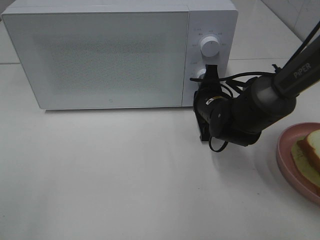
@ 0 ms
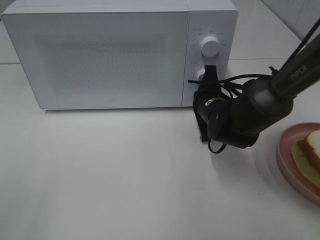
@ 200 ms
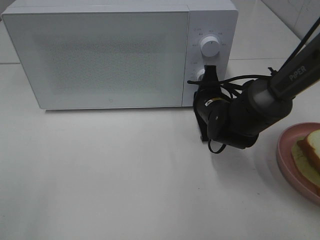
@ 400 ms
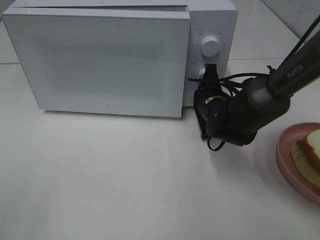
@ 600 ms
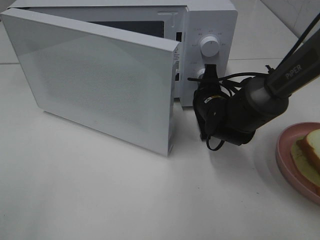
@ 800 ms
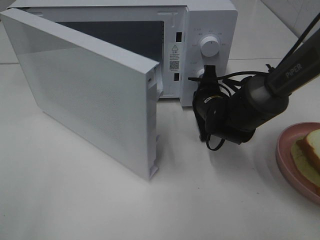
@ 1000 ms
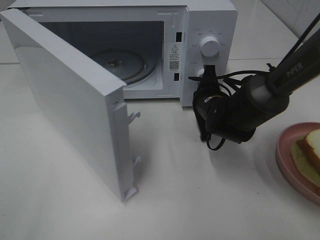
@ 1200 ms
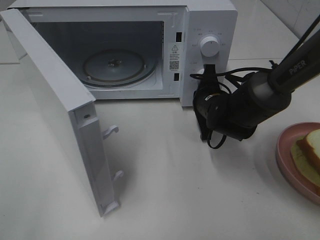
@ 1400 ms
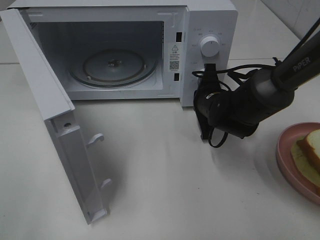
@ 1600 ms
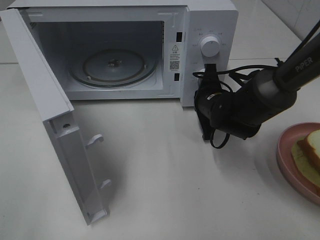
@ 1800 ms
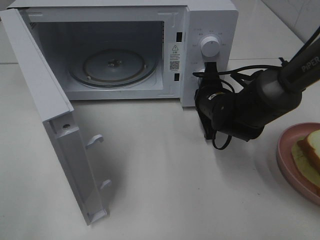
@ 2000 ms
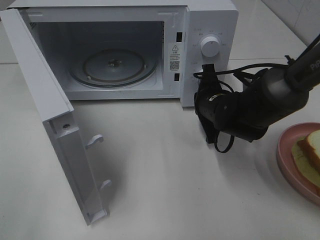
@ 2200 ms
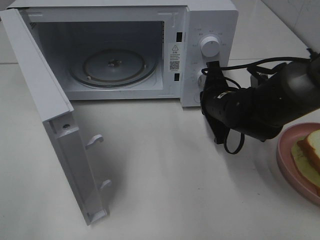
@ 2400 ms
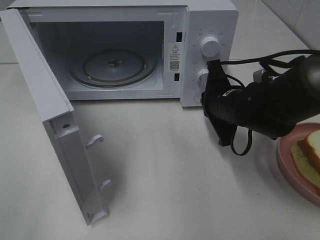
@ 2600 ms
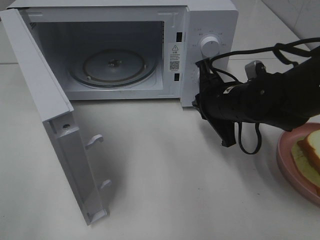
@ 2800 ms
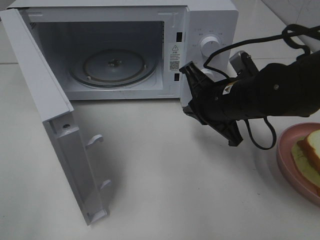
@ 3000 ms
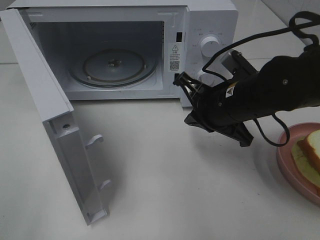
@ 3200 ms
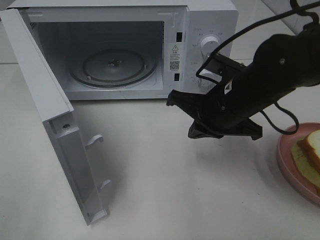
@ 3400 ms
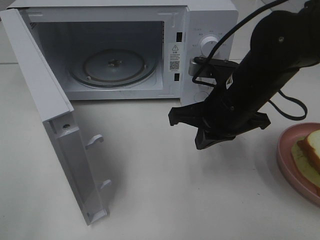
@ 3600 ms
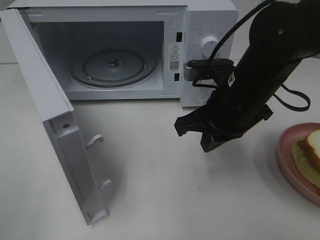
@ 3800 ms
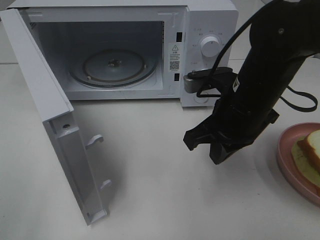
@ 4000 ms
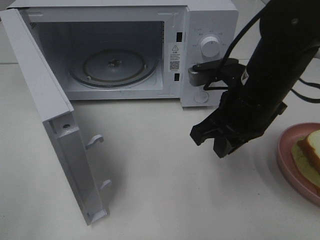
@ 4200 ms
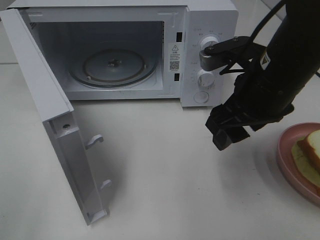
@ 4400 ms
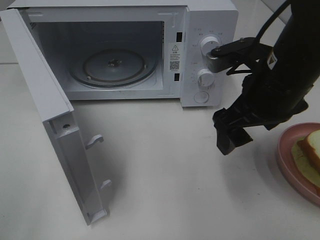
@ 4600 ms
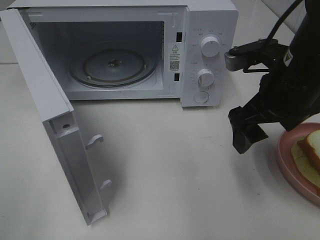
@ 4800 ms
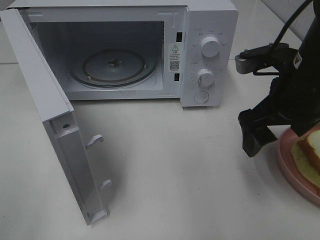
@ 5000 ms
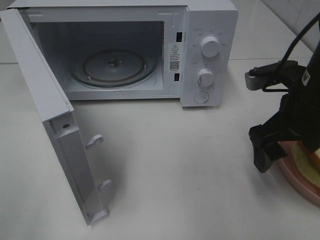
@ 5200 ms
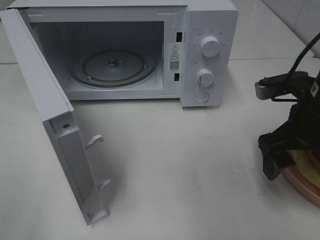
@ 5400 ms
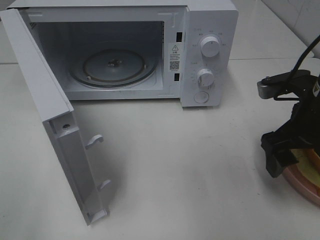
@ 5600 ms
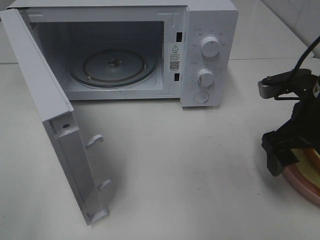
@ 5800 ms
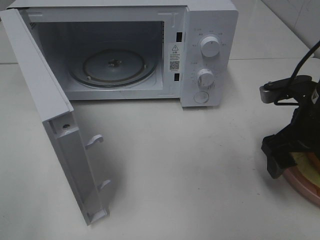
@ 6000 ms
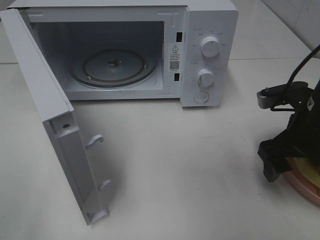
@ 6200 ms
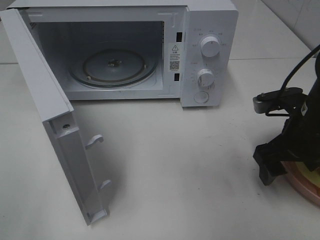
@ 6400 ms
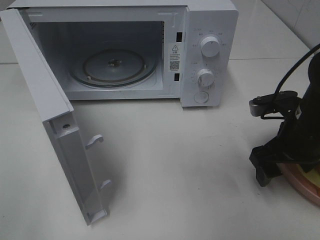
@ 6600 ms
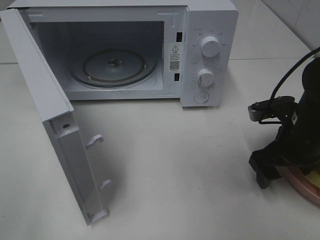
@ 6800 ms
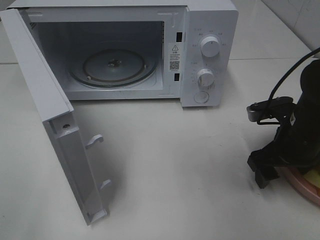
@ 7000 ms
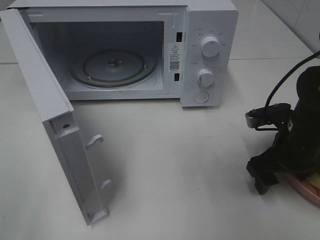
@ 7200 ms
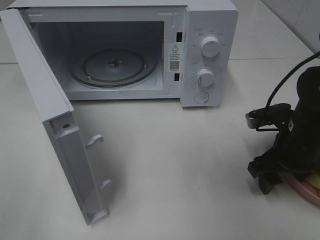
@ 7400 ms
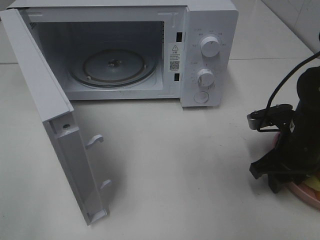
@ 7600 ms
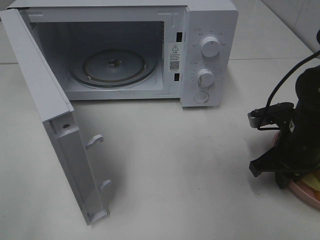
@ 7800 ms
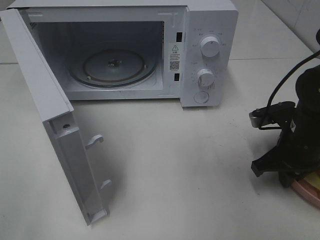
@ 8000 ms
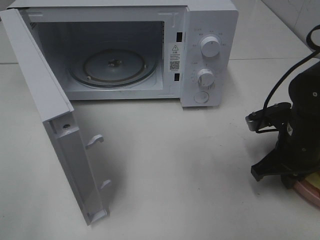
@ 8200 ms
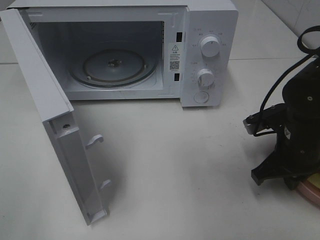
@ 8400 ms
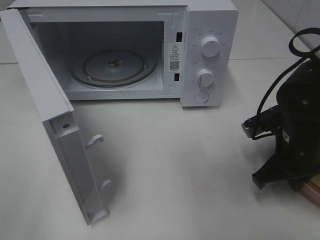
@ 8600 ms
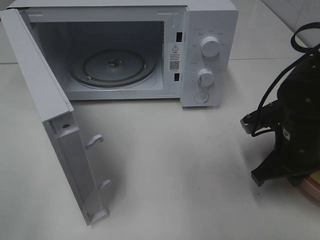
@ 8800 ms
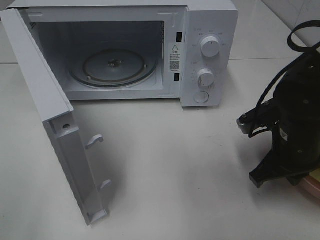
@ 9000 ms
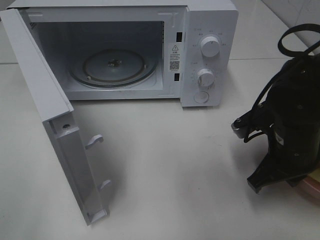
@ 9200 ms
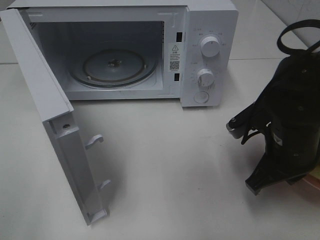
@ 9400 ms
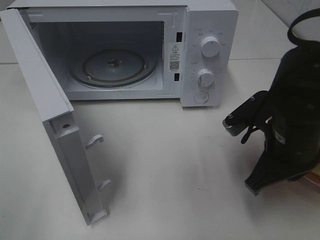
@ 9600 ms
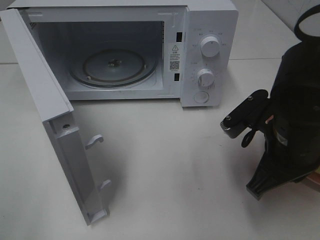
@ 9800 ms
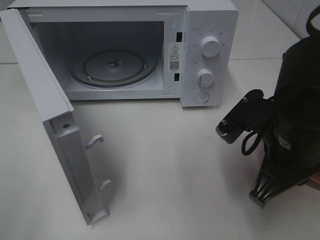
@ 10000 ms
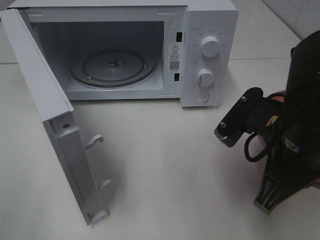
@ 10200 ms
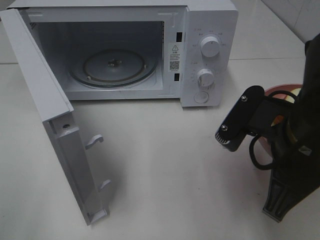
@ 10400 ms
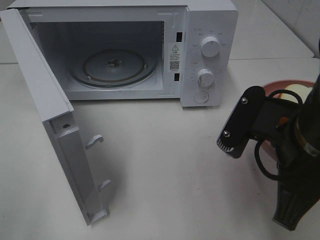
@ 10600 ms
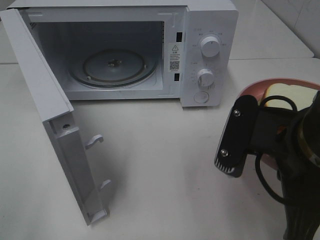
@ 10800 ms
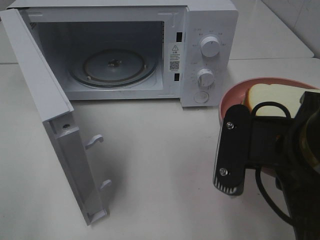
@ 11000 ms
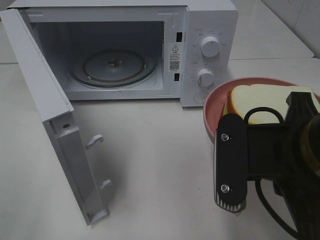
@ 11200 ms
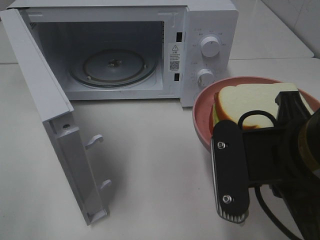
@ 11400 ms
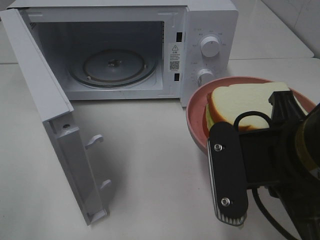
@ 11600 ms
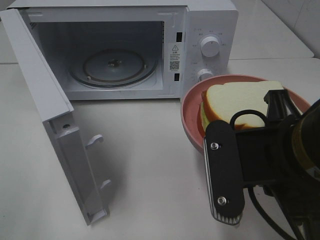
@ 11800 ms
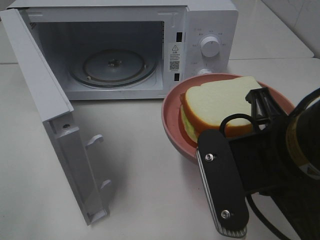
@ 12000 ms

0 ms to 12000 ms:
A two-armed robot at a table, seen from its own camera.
Task of the whole recording: Heat Sandwich.
Step, 0 ms to 2200 ms: Right hand: press the switch.
Step, 2400 ms to 8000 ms: Right hand: grab the plate with the sandwich.
1600 ms to 3000 ms: The right gripper moves backward and upward, approximately 10 cm.
3000 ms to 4400 ms: The right gripper goes approximately 5 cm upward, and opens up.
4400 ms to 6000 ms: The right gripper goes approximately 10 cm to the right and downward.
6000 ms to 7600 ms: The right gripper moves downward, some 5 cm, and closes its fingers.
7600 ms to 9000 ms: The right gripper closes.
9000 ms to 10400 ms: The right gripper goes roughly 10 cm upward, backward and to the left.
10400 ms to 12000 ms: The right gripper changes place by roughly 5 cm.

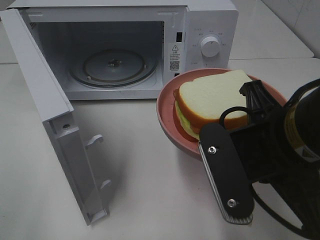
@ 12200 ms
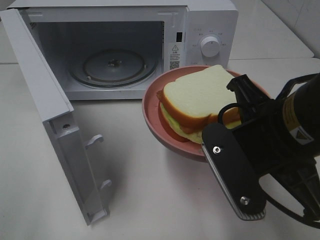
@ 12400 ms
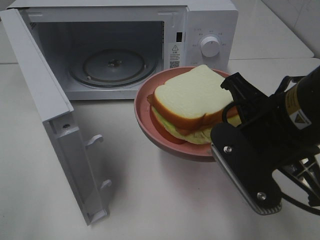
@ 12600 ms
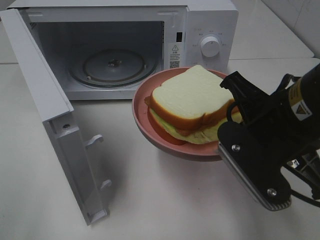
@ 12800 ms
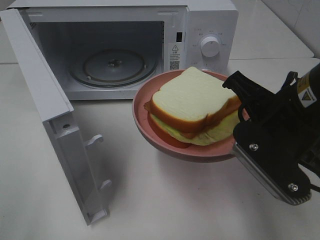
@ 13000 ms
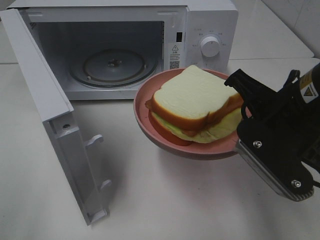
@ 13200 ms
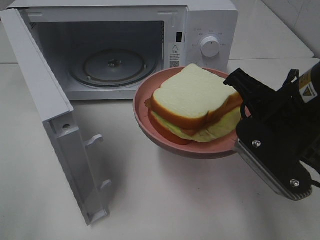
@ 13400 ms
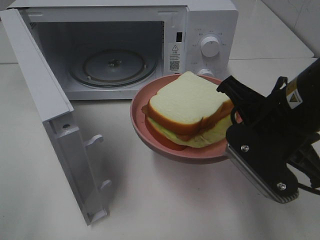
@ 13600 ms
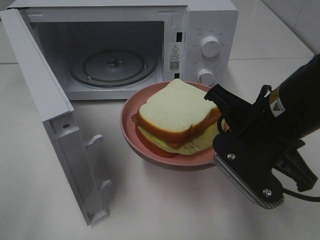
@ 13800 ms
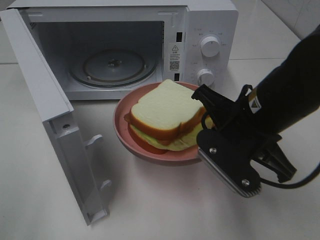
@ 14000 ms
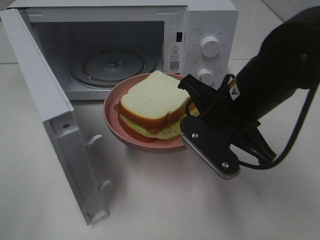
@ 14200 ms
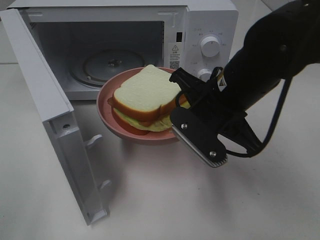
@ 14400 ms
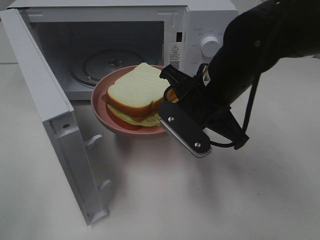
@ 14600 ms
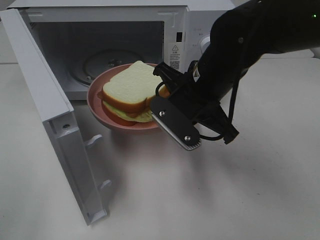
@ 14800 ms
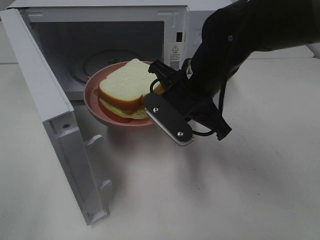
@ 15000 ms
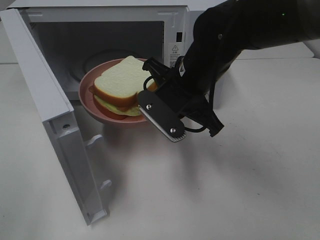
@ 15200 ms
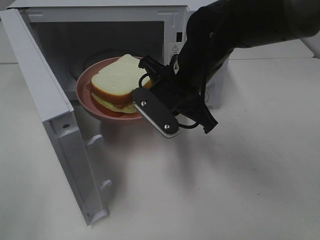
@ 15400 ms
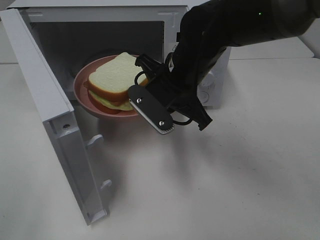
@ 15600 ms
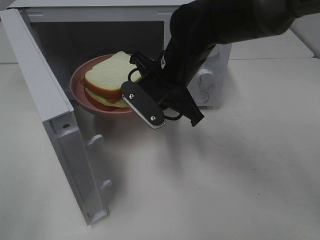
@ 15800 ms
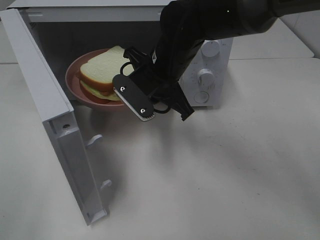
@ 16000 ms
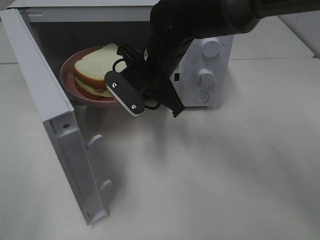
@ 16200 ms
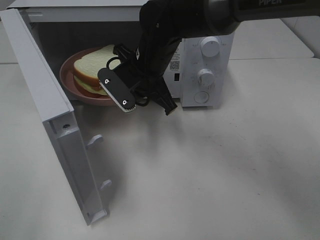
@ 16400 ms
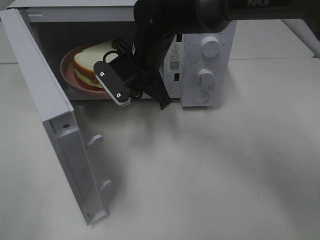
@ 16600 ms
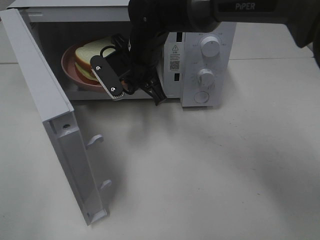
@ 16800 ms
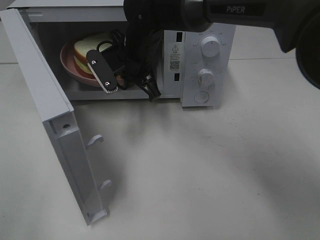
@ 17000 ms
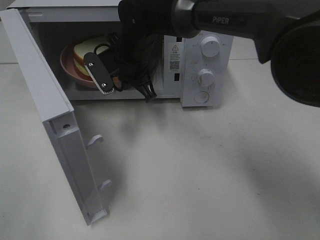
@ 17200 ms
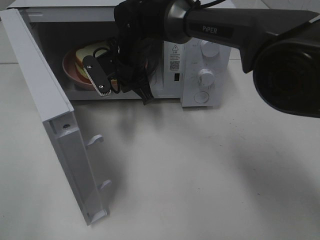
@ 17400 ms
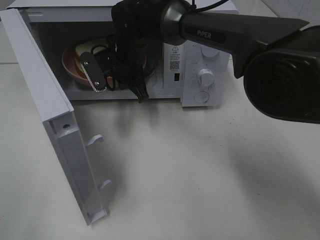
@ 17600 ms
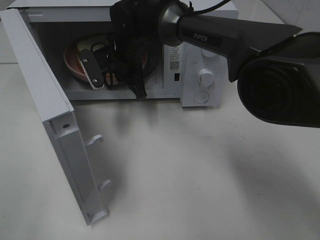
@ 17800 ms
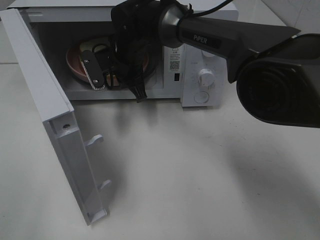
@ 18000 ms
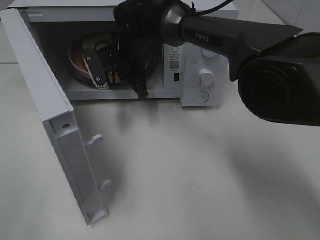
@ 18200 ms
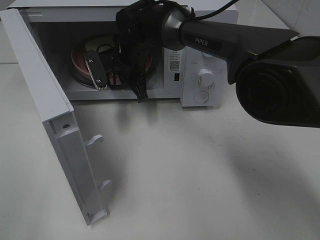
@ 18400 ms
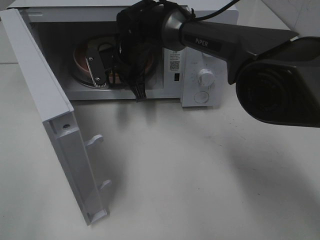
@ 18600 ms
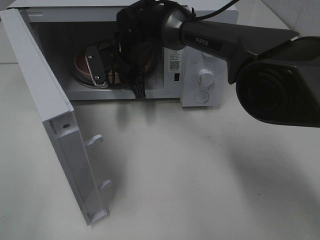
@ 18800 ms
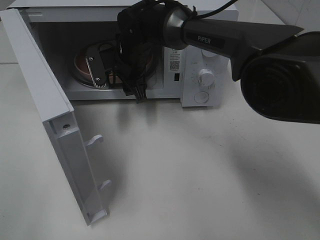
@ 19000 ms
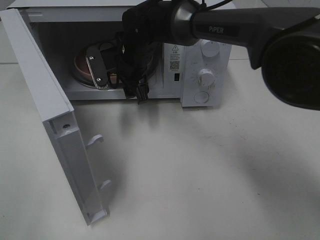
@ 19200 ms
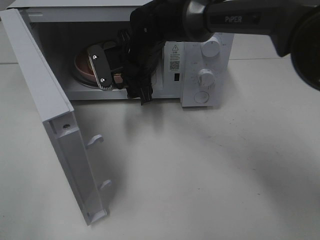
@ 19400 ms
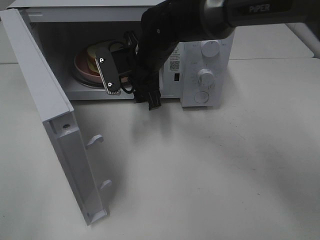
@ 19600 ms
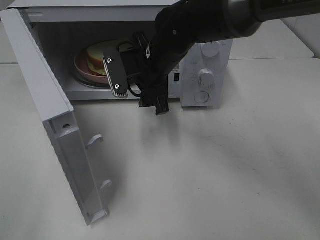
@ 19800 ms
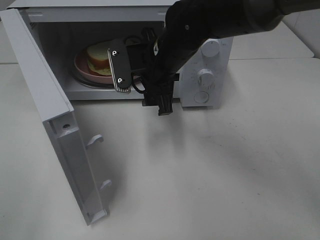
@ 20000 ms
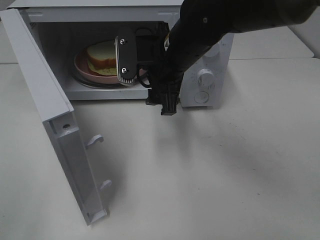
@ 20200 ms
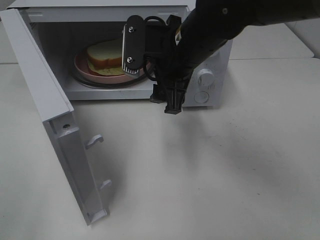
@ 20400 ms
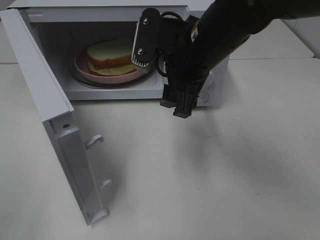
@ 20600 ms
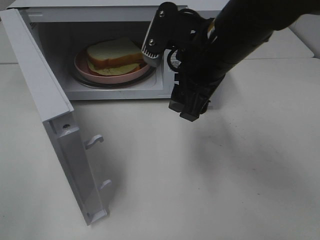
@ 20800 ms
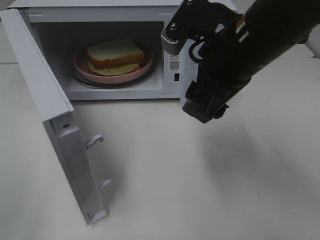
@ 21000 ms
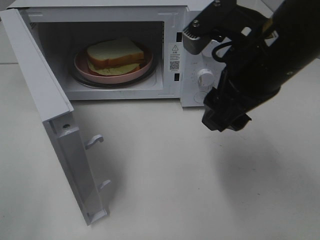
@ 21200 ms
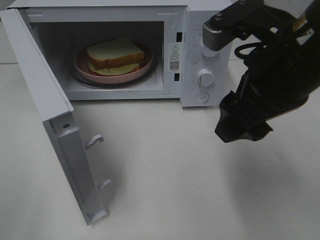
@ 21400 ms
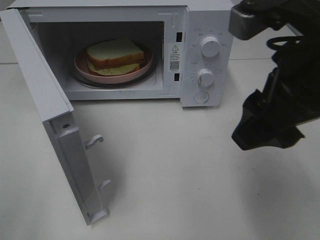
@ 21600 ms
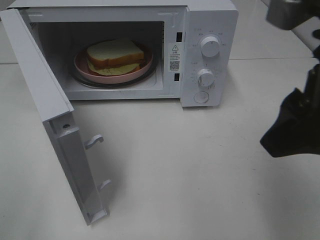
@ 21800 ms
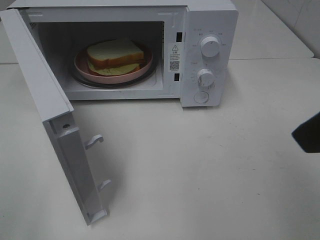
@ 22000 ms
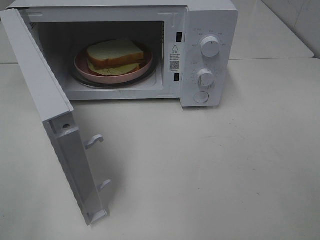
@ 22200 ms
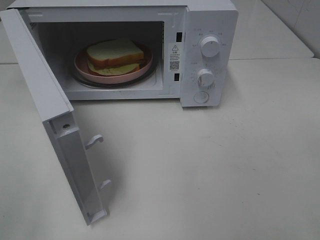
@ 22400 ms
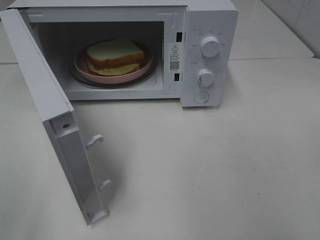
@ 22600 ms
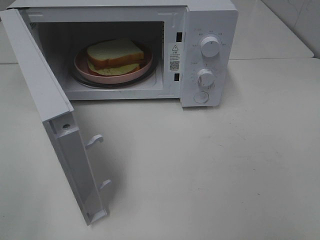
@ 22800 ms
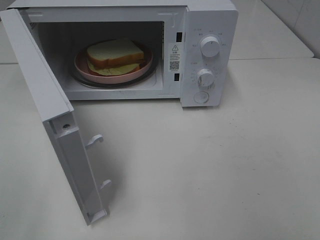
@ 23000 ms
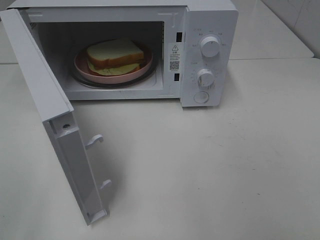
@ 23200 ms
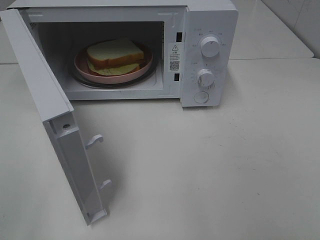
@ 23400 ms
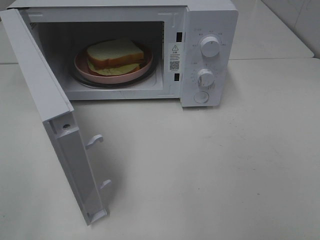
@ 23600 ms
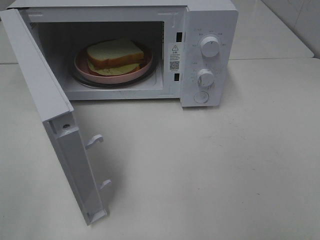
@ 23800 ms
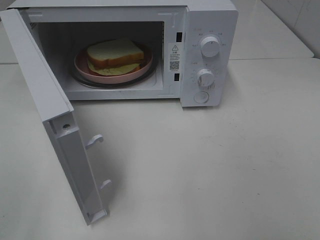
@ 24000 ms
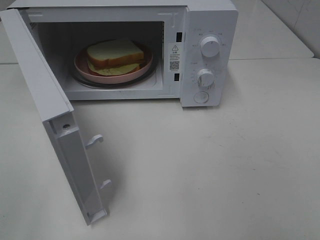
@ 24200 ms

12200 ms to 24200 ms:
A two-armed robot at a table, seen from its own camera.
Task of the whole recording: Heat Sandwich.
Step, 12200 ms to 20000 ms: Right hand: place the plate in the microwave.
12200 ms to 13800 ms: The right gripper goes some 5 cm forward.
13800 ms to 15200 ms: The right gripper heads forward and to the left, covering about 15 cm.
15200 ms to 16600 ms: The right gripper travels forward and to the left by approximately 10 cm.
16600 ms to 18200 ms: The right gripper is displaced forward by roughly 5 cm.
18200 ms to 19800 ms: The right gripper goes about 10 cm backward and to the right, and opens.
19800 ms to 21200 ms: The right gripper heads backward, to the right and upward, covering approximately 20 cm.
21200 ms to 22600 ms: The right gripper goes some 20 cm backward and to the right.
